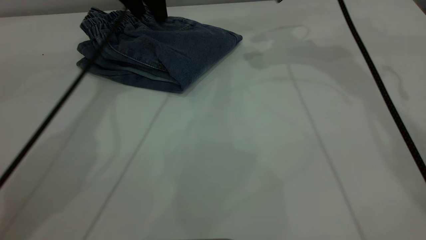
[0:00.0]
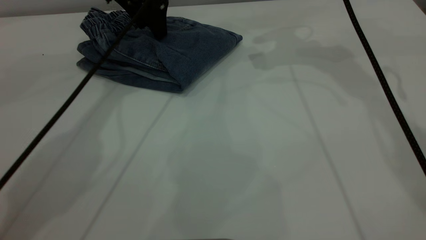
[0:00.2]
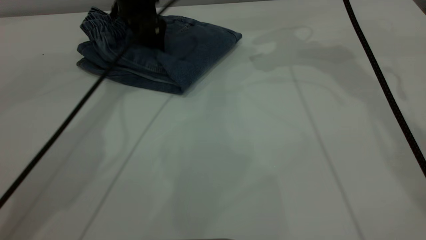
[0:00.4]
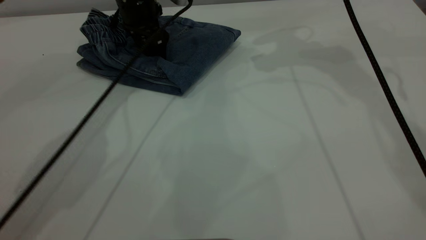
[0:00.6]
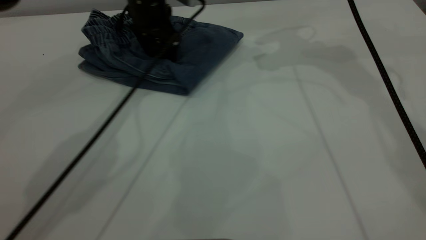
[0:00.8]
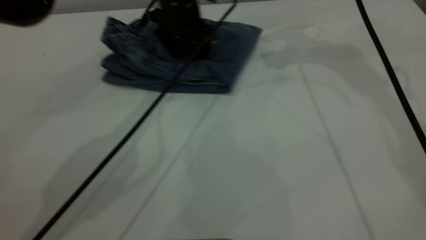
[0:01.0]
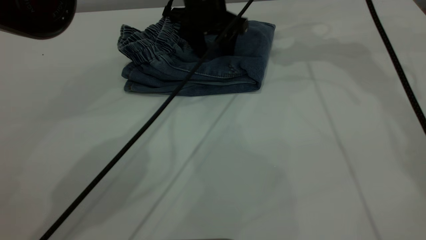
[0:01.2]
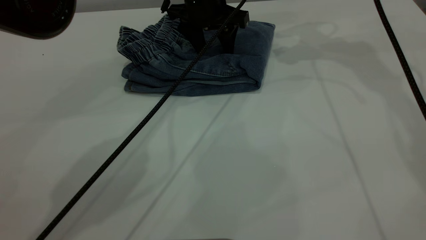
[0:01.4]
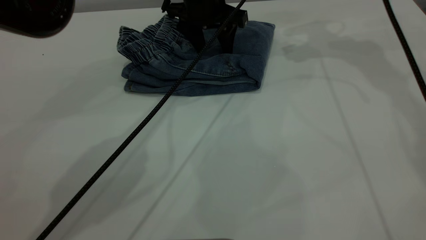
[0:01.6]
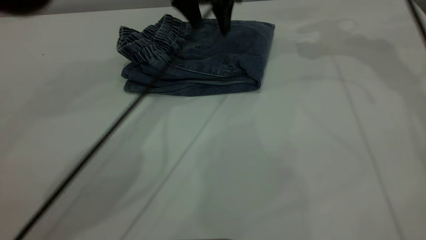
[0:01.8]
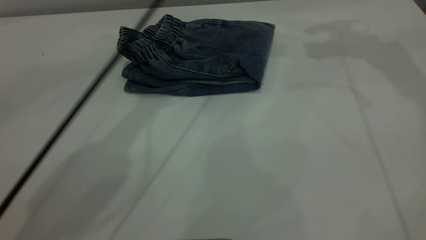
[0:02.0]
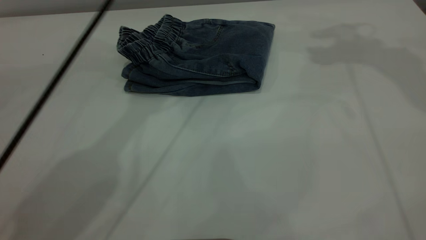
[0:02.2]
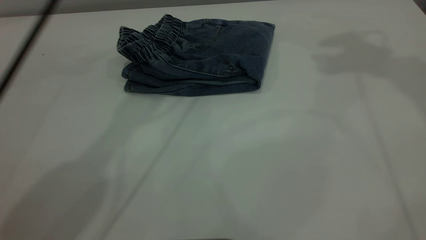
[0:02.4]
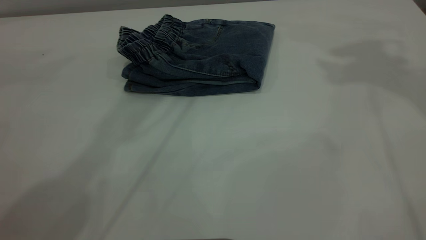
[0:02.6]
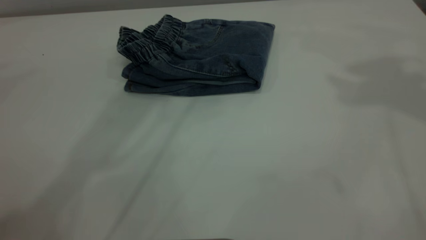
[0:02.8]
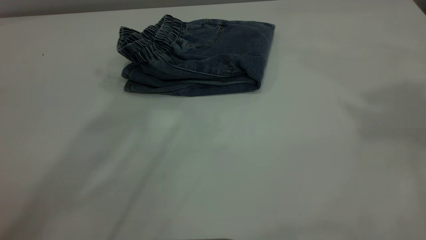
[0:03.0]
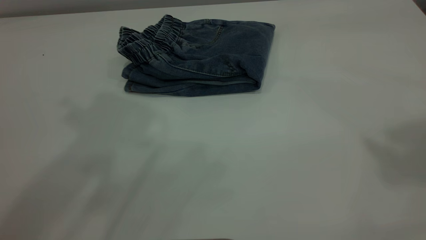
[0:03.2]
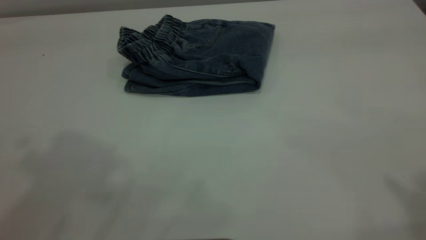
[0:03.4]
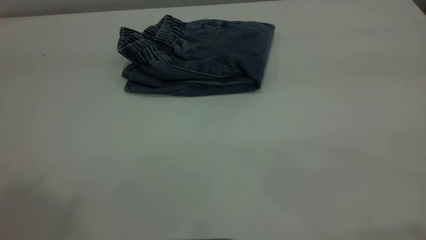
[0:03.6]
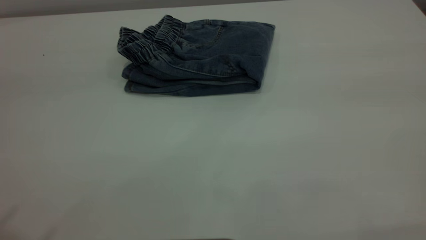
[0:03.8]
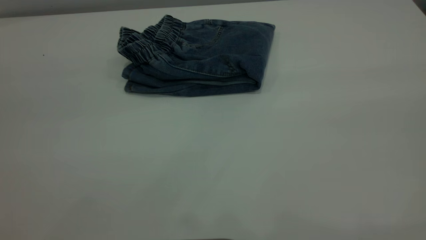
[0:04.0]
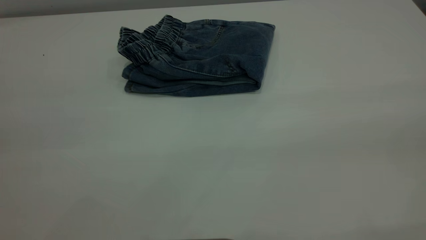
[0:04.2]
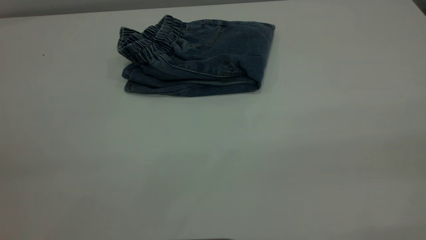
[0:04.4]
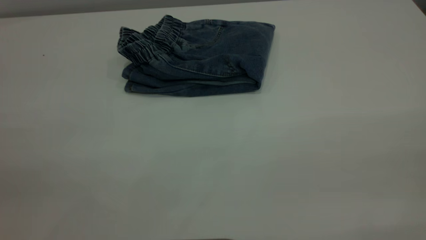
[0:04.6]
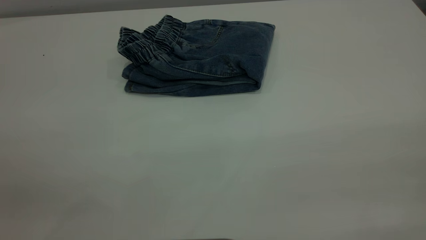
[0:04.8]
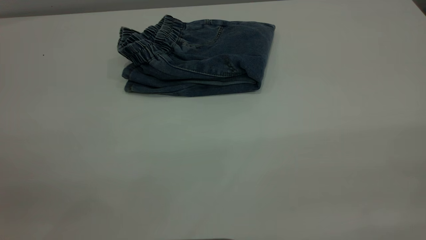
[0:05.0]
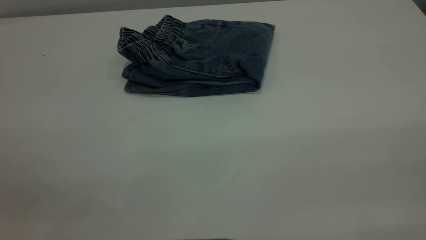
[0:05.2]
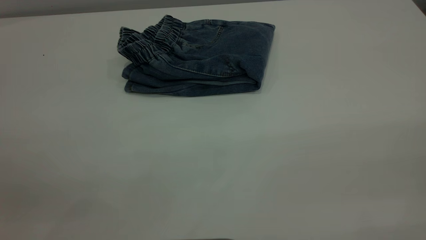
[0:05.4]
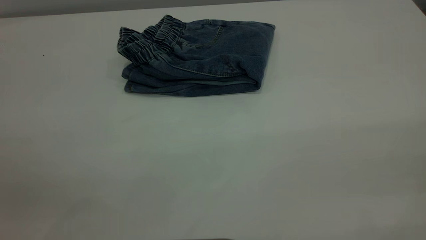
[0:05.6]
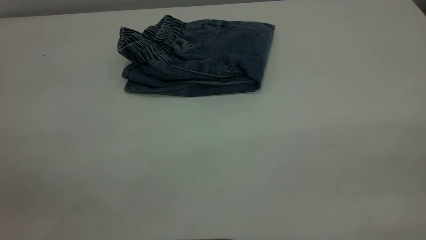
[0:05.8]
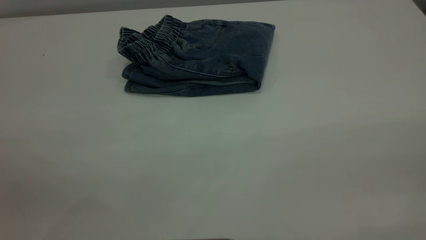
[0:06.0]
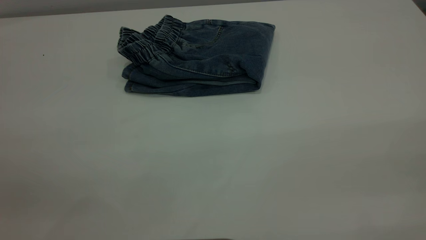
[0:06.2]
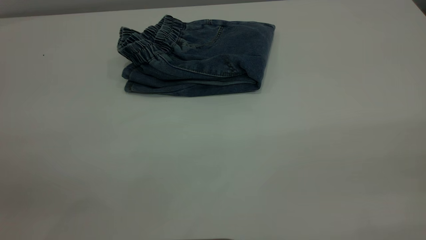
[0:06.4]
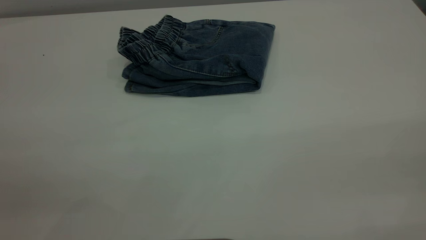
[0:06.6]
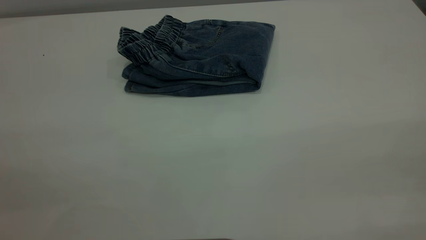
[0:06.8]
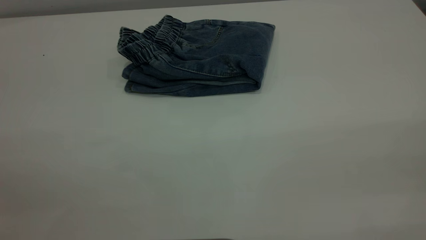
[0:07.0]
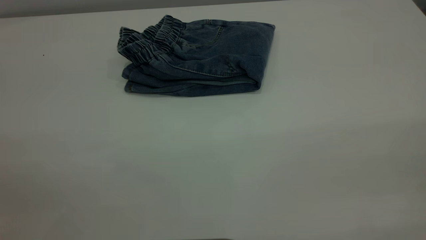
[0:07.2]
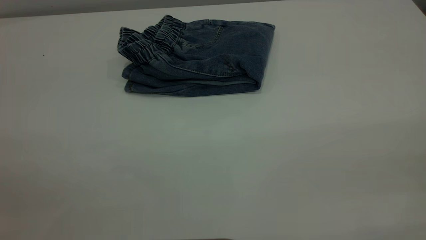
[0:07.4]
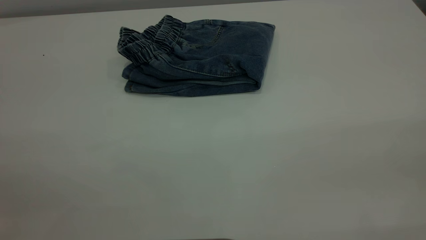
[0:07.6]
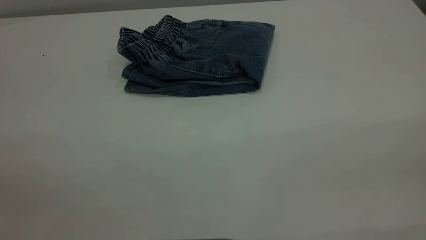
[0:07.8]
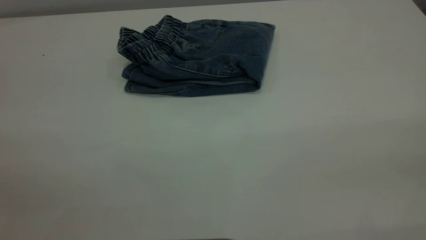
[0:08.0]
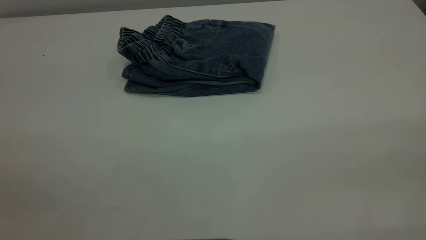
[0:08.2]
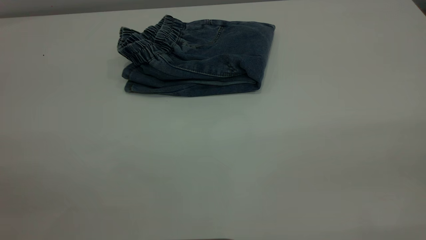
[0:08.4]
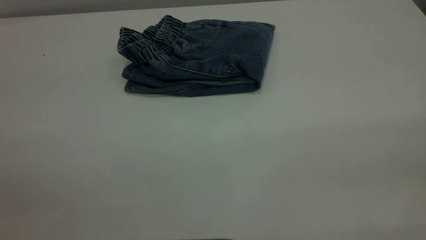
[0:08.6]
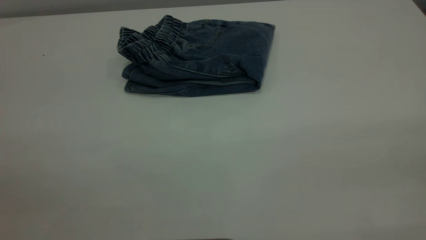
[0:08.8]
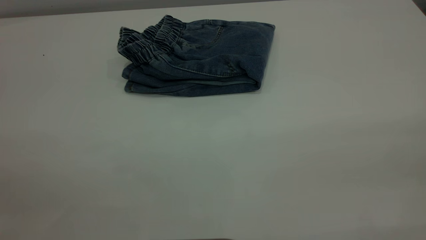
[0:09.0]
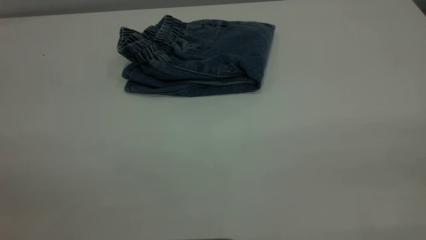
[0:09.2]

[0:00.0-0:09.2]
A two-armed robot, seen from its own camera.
0:00.0 to 0:01.6: The left gripper travels to the right by some 10 cm, while the right gripper heads to the right, covering roughly 5 cm.
0:01.6 to 0:03.0: Both grippers travel together upward and backward, about 40 cm.

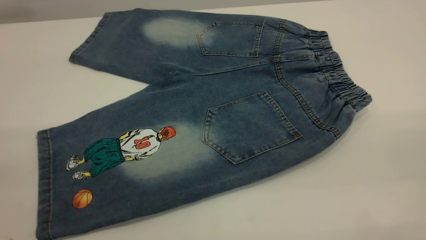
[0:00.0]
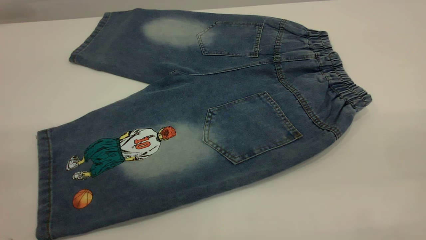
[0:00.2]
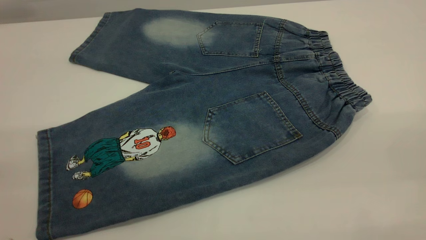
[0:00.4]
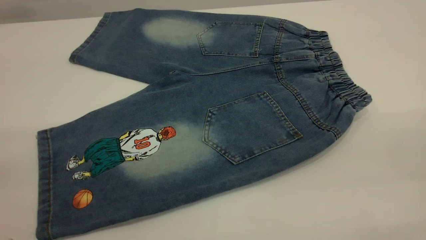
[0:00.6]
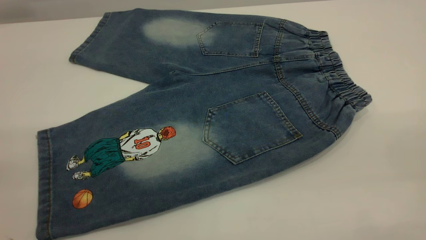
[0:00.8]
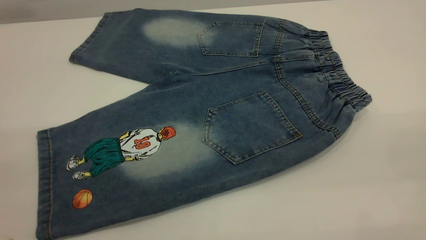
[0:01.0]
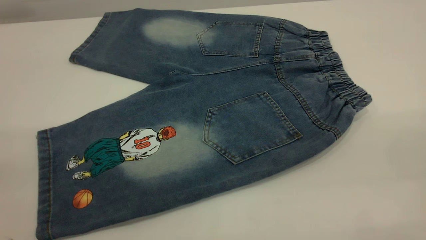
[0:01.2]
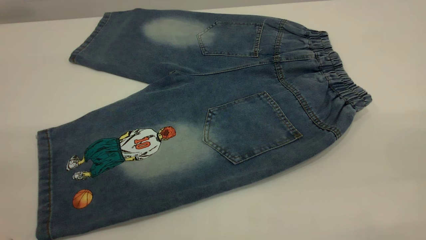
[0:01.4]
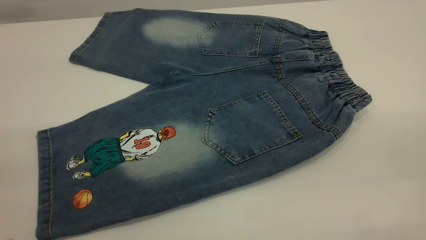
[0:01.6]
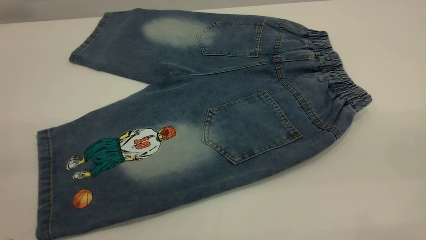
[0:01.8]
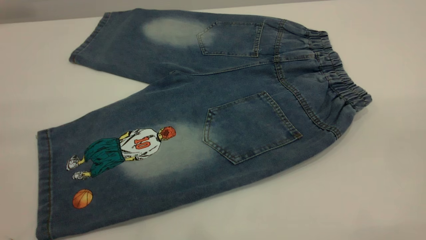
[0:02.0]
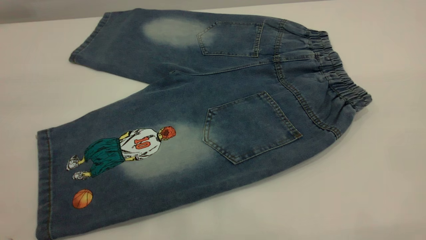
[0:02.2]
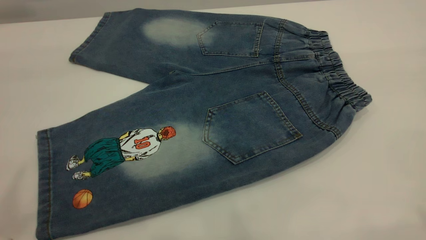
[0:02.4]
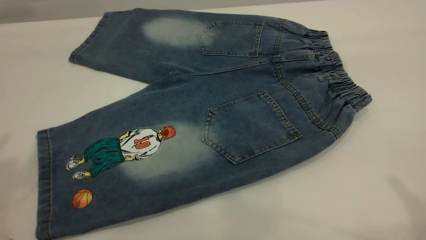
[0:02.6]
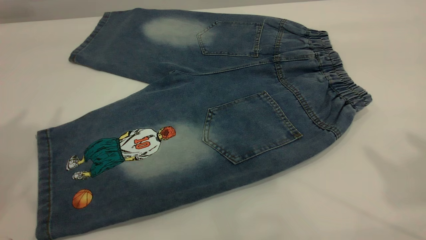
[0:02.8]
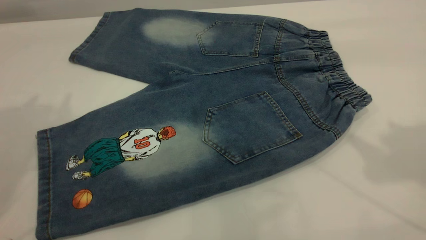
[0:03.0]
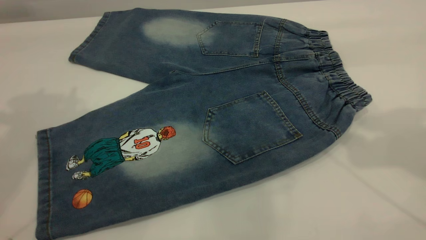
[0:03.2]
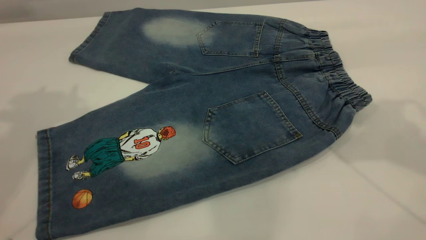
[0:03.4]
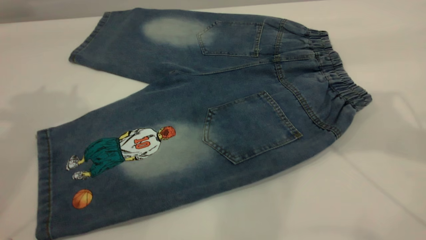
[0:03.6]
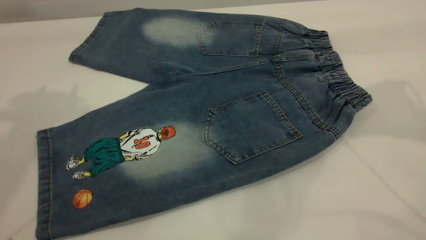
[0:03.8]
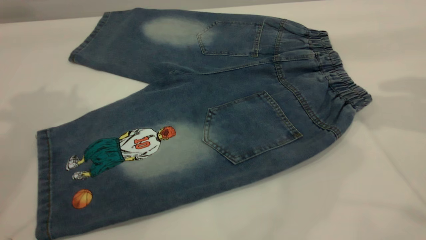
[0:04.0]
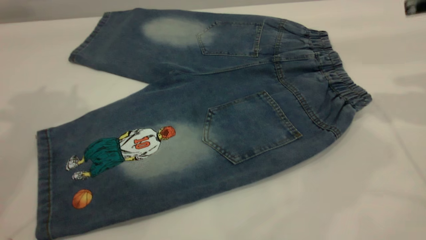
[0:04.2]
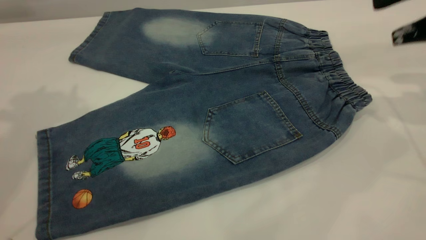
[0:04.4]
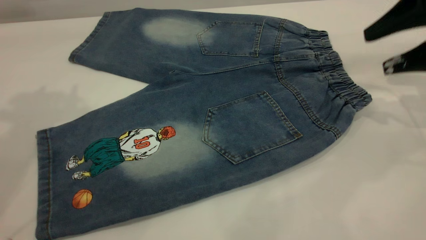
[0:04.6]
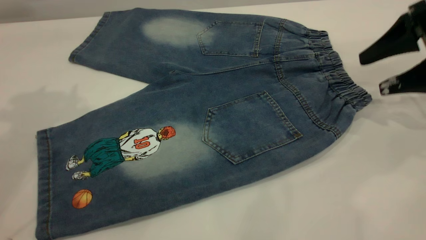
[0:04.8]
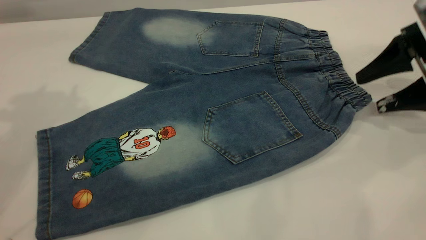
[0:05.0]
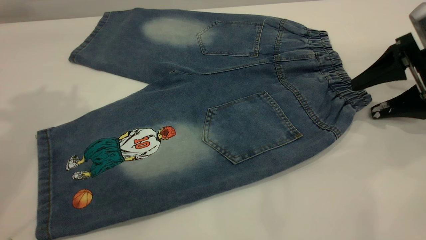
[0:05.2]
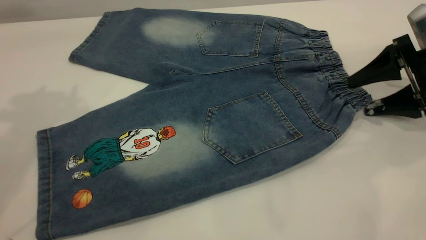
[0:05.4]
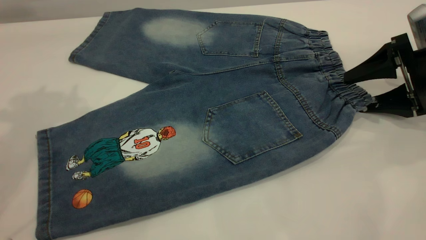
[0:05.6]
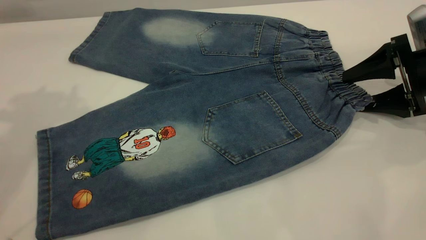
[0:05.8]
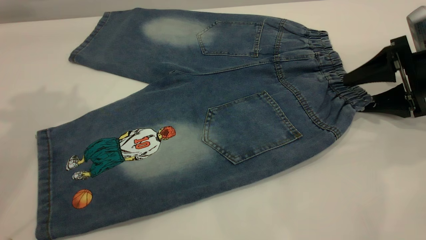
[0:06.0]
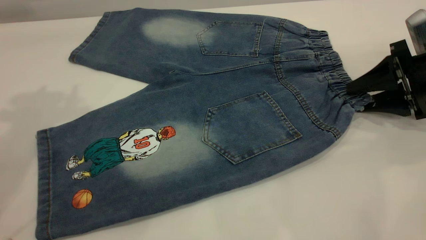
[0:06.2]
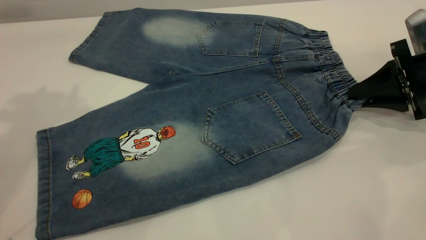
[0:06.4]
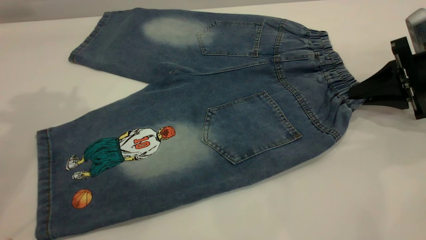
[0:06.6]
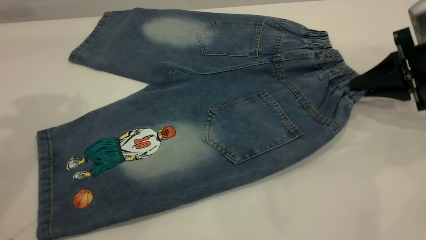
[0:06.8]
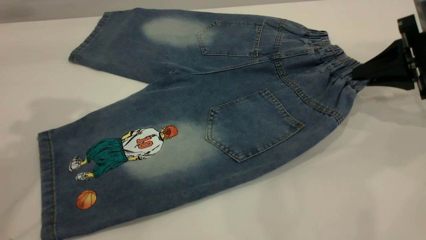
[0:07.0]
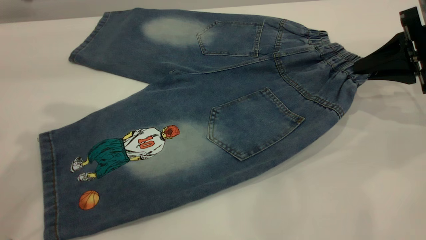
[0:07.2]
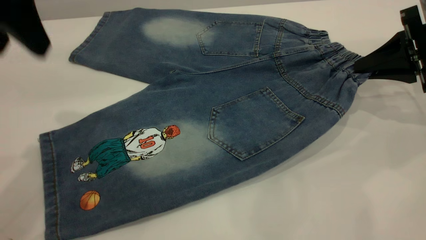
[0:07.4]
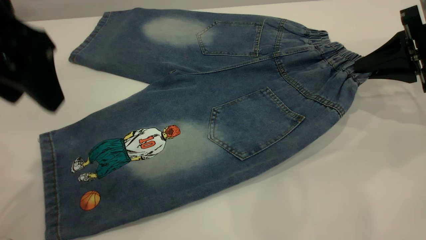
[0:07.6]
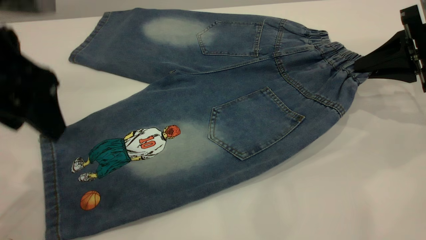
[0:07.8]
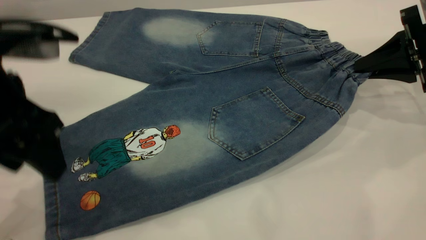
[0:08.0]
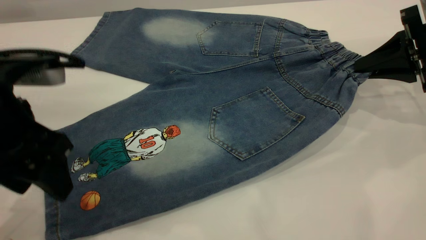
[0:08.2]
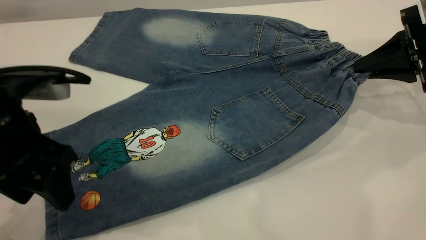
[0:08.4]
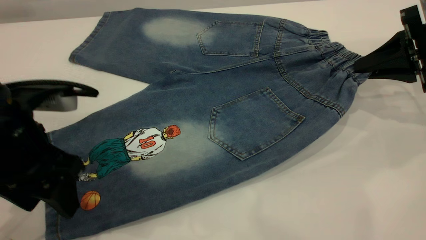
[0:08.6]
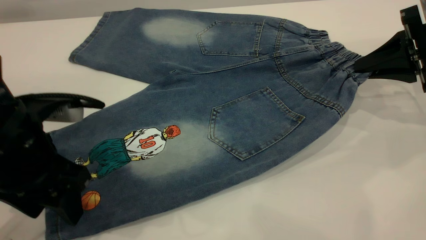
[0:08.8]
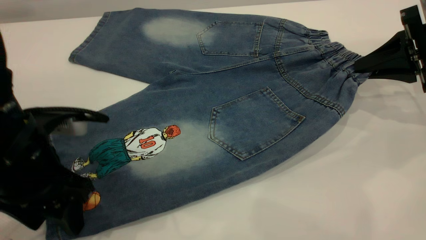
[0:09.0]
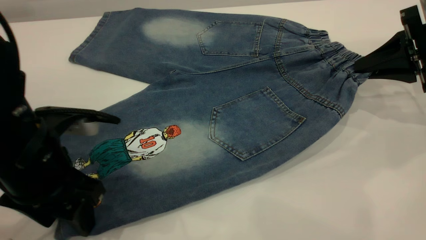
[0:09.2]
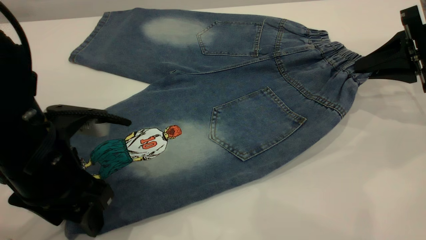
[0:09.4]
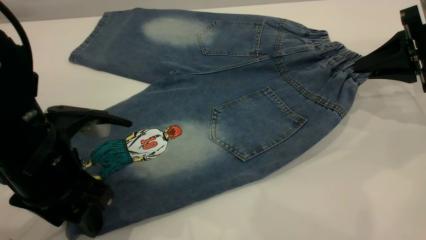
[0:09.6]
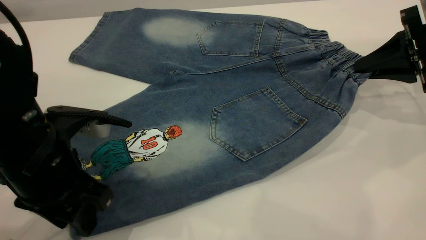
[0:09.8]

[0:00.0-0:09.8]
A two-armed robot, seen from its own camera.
0:00.0 to 0:01.4: The two grippers keep their place.
0:04.2 to 0:05.6: The right gripper heads downward, covering about 15 cm.
0:05.6 to 0:07.0: The right gripper closes.
0:07.0 to 0:08.4: The left gripper heads downward and backward, covering approximately 20 cm.
0:08.4 to 0:09.8: The left gripper shifts by about 5 cm, and closes.
